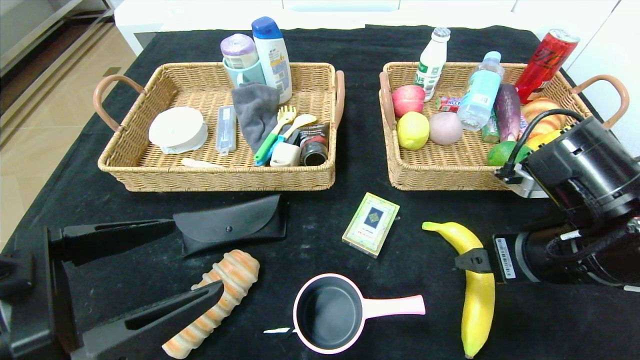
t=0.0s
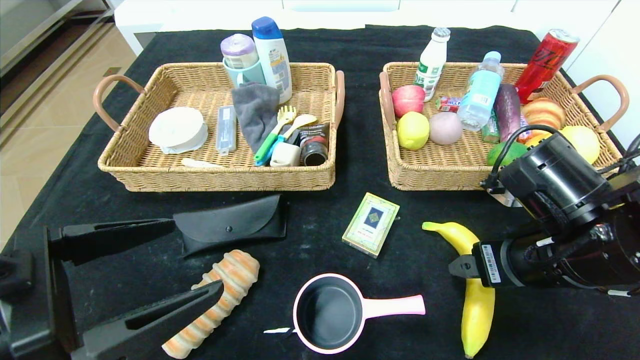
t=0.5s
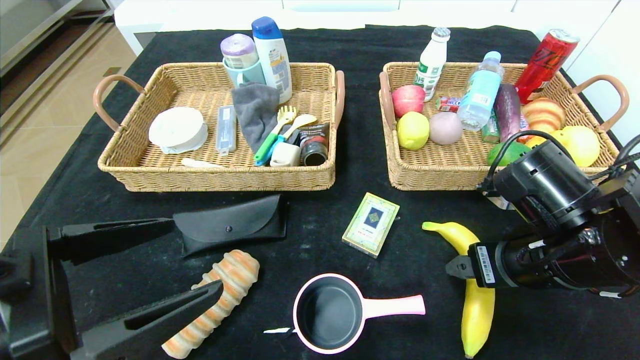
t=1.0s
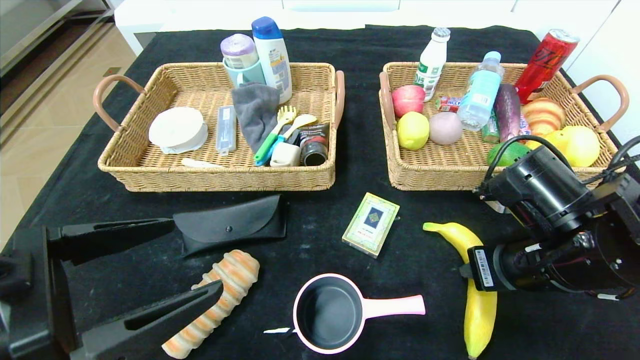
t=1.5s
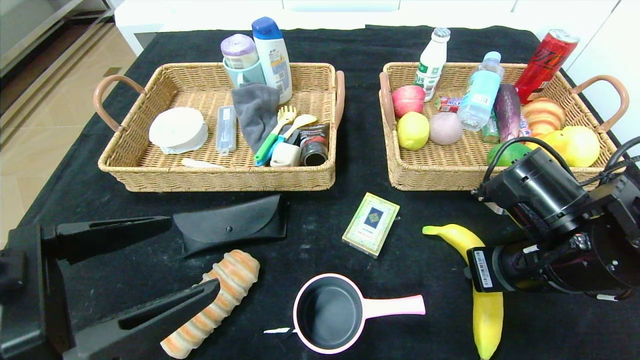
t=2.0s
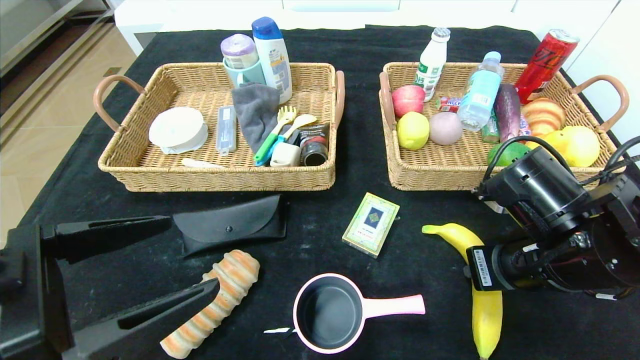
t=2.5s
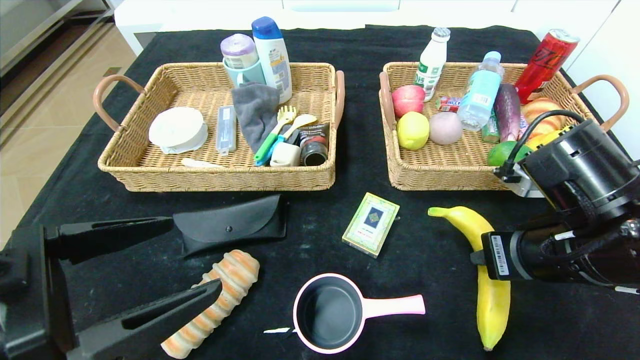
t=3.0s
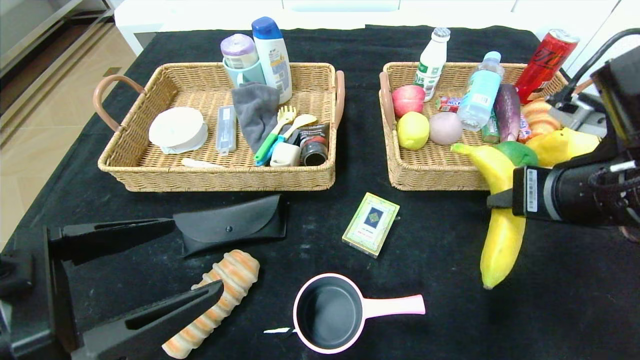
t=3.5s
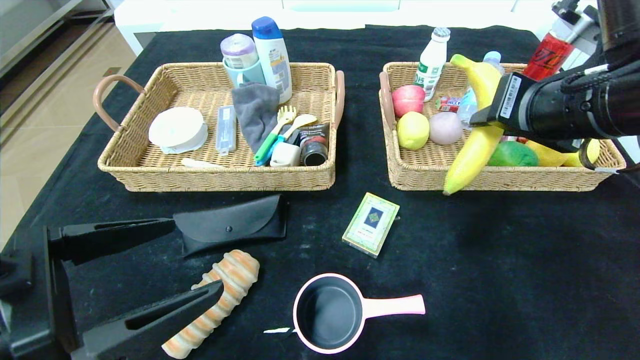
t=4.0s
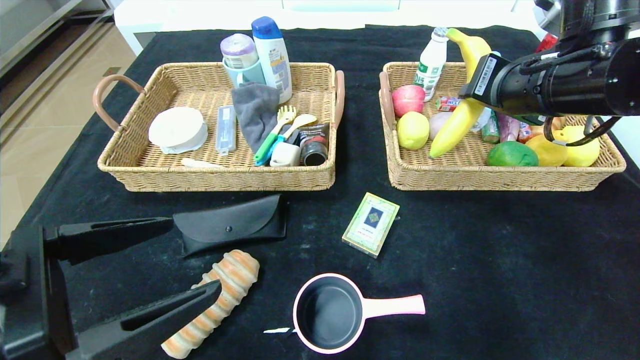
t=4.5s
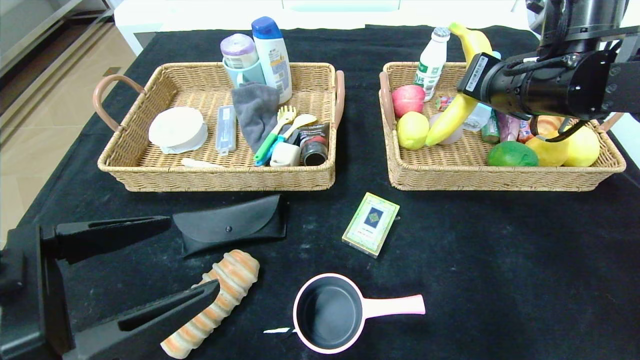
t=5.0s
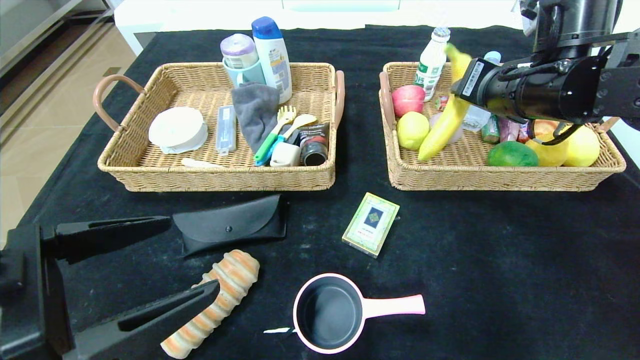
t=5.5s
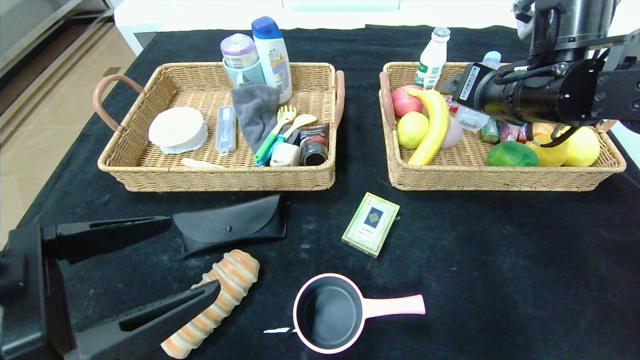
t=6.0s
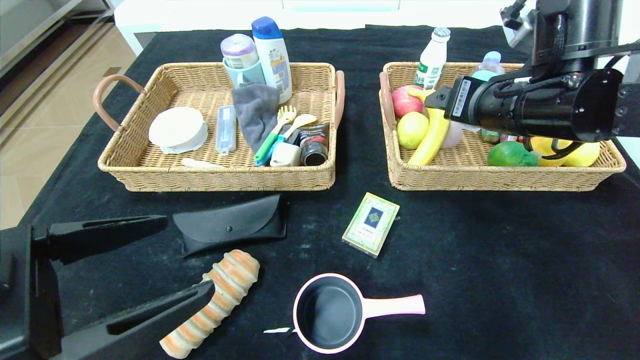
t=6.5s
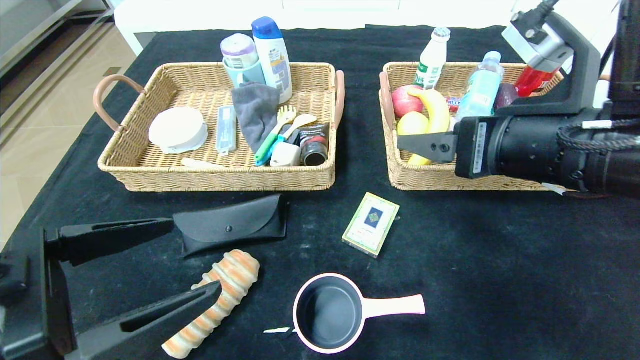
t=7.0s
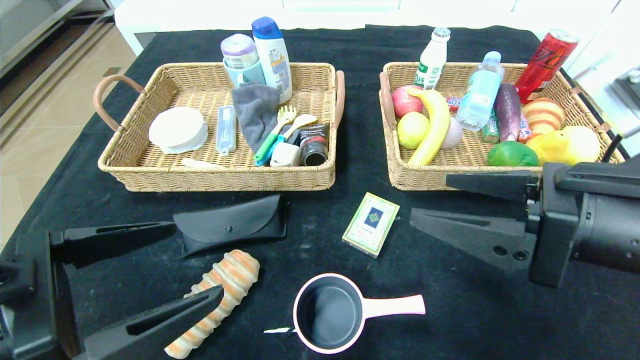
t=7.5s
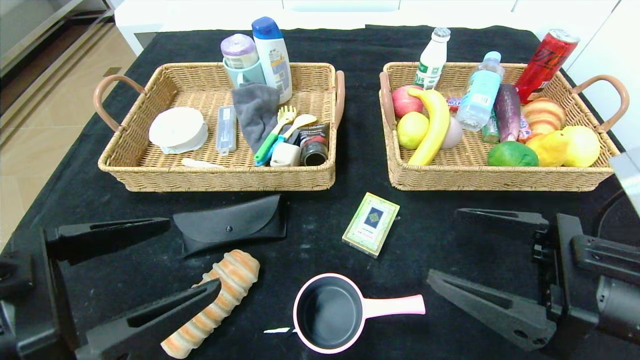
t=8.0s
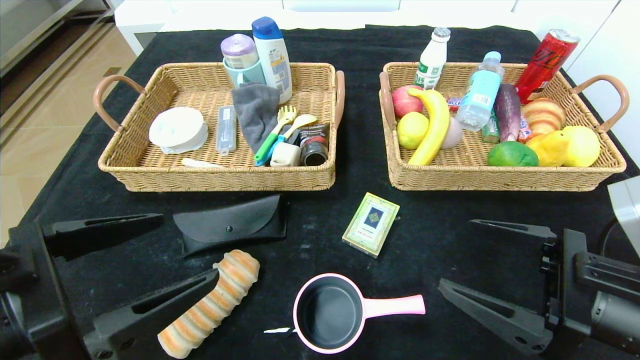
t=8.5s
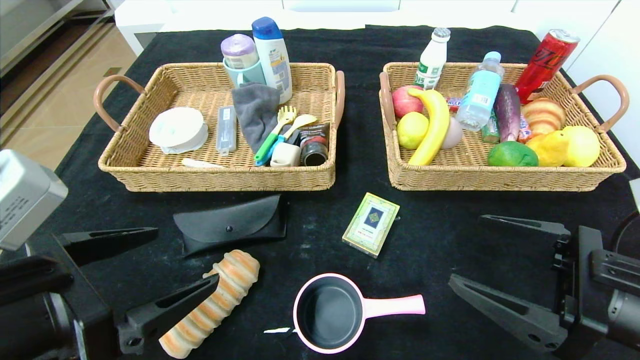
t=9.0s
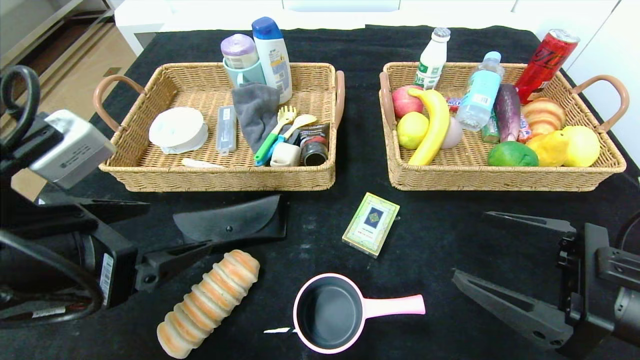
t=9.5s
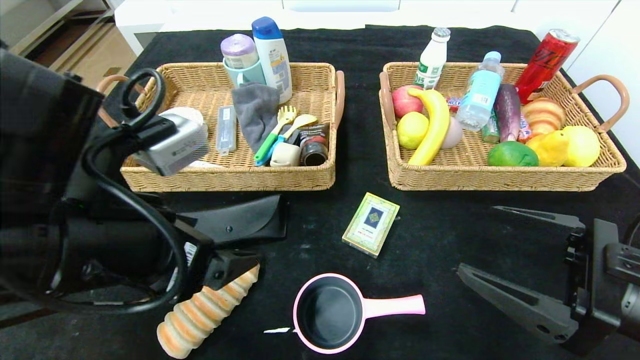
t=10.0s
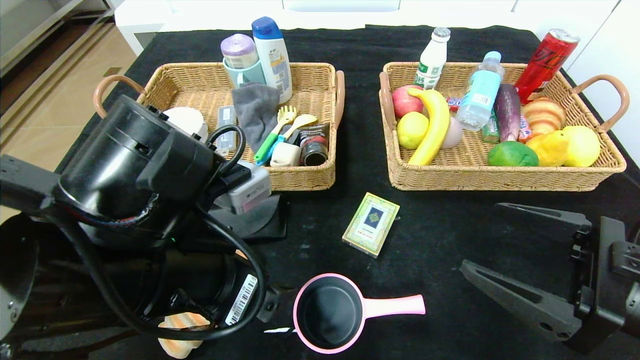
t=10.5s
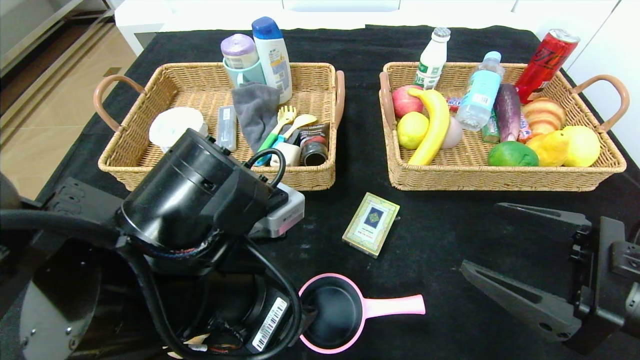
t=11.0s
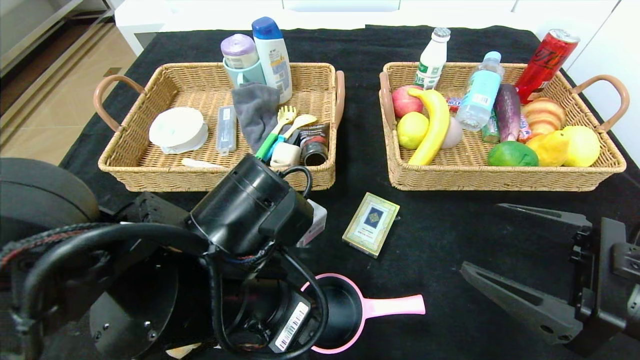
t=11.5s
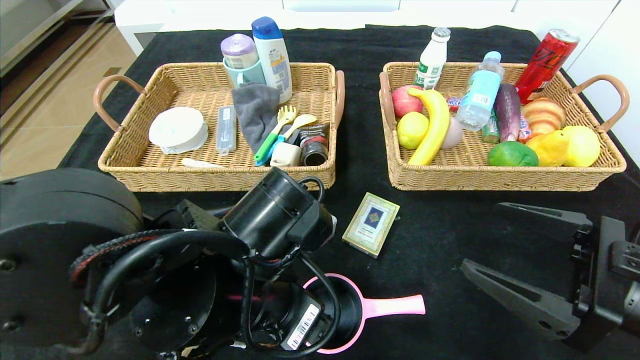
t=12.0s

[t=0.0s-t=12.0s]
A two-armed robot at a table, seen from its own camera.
Step, t=0.0s to t=7.5s: Pick up the banana and put it in the right basket.
t=0.0s to t=2.0s: The right gripper closes up.
t=2.0s to t=4.0s: The right gripper travels upward by about 15 cm.
t=4.0s to t=6.0s: The right gripper heads forward, covering approximately 5 cm, and opens up.
t=6.0s to t=8.0s: The right gripper travels backward and downward by some 20 cm.
t=8.0s to t=10.0s: The left gripper travels forward and to the right by approximately 10 cm.
t=10.0s to t=12.0s: The left gripper is displaced to the right and downward by about 10 cm.

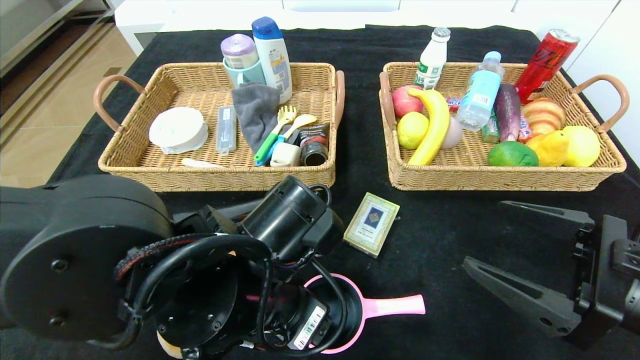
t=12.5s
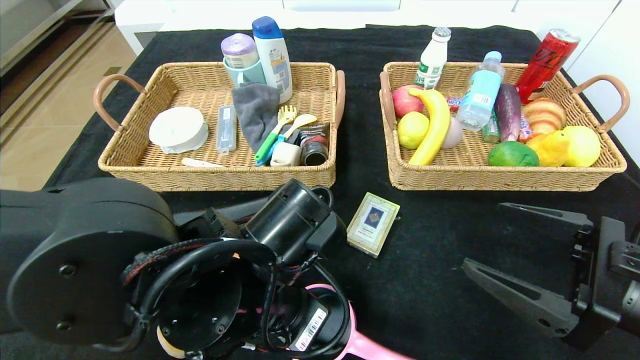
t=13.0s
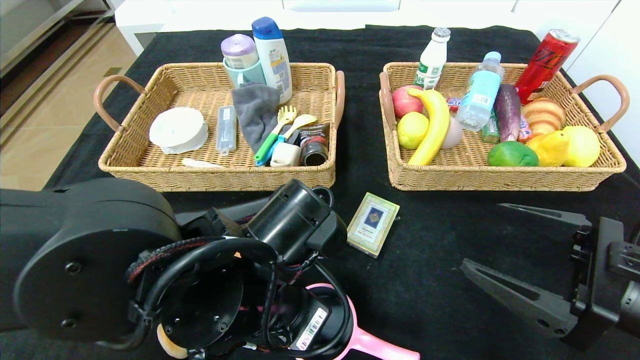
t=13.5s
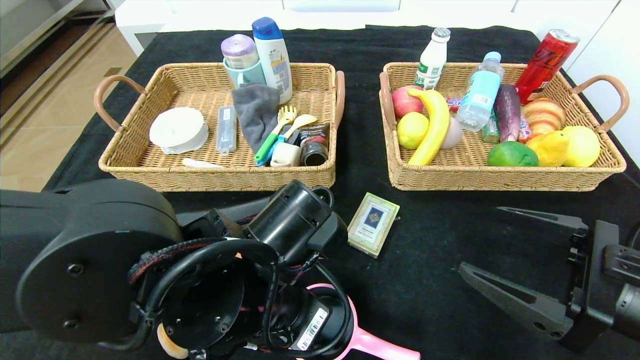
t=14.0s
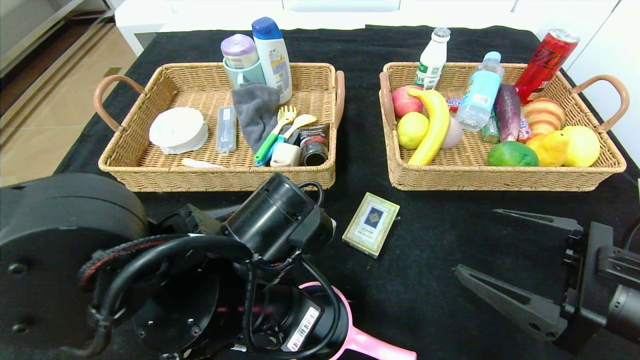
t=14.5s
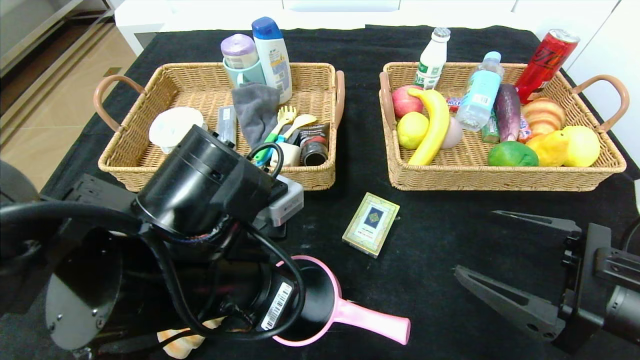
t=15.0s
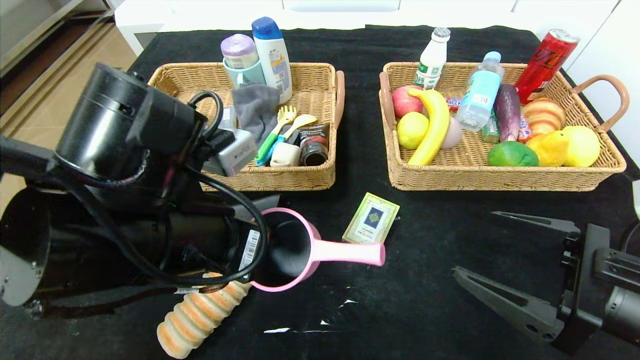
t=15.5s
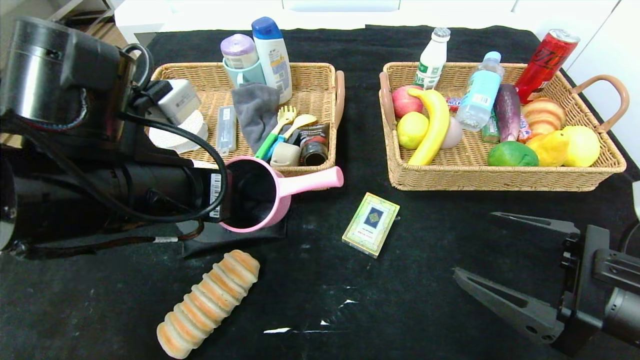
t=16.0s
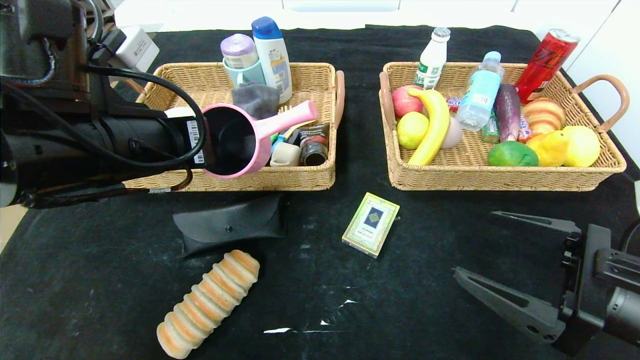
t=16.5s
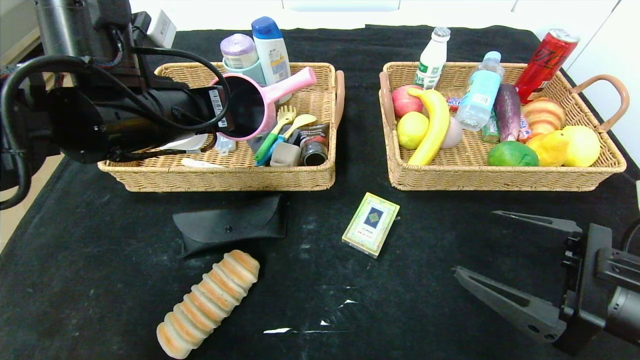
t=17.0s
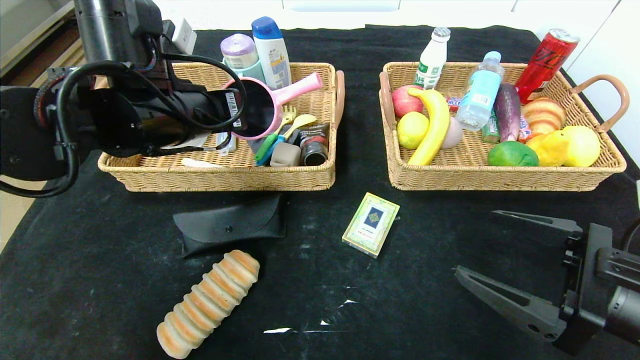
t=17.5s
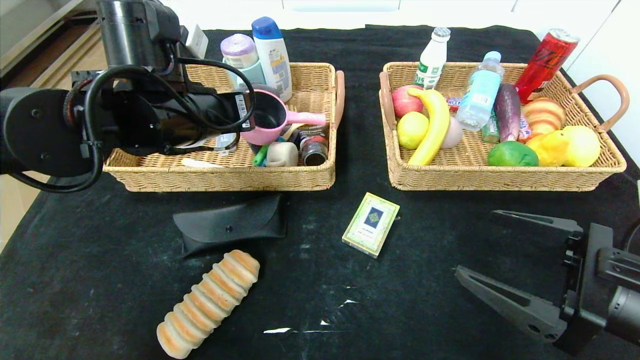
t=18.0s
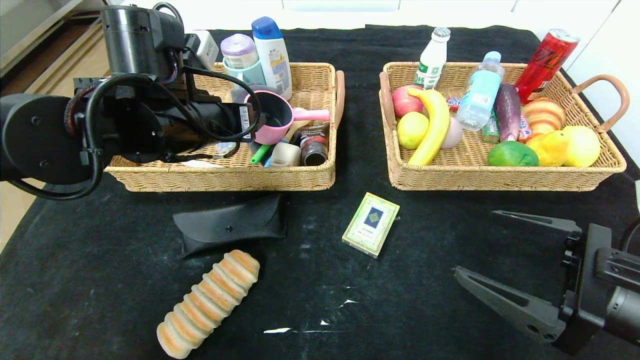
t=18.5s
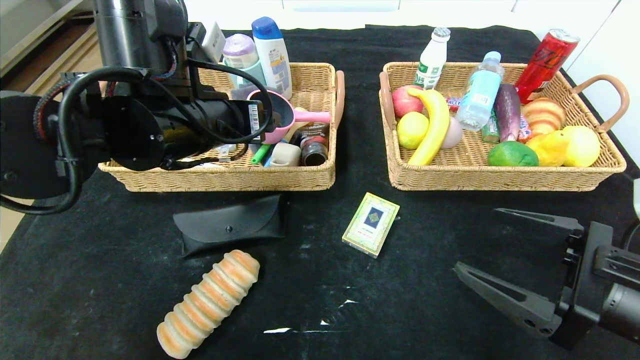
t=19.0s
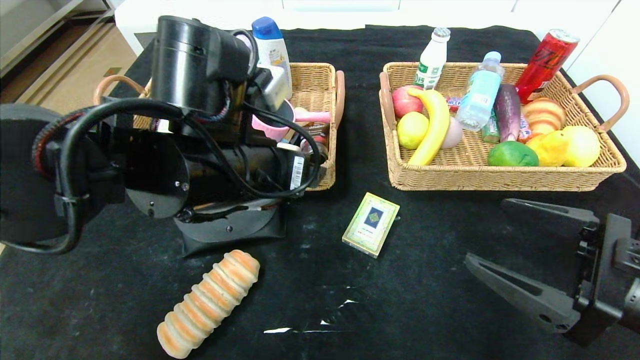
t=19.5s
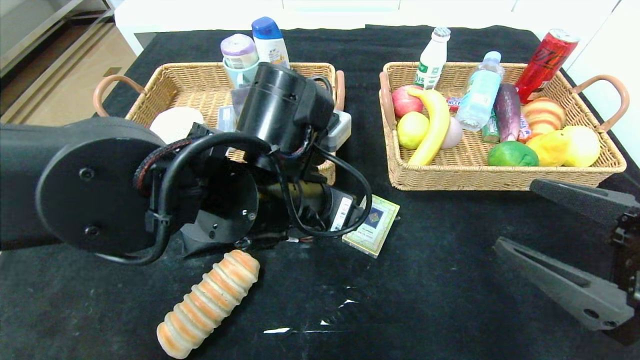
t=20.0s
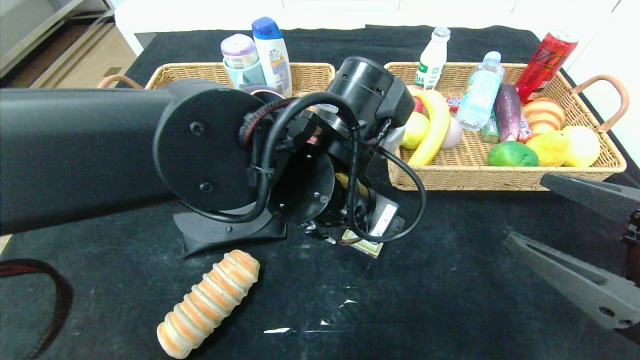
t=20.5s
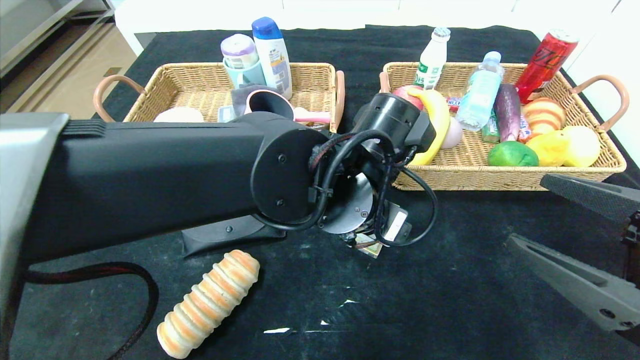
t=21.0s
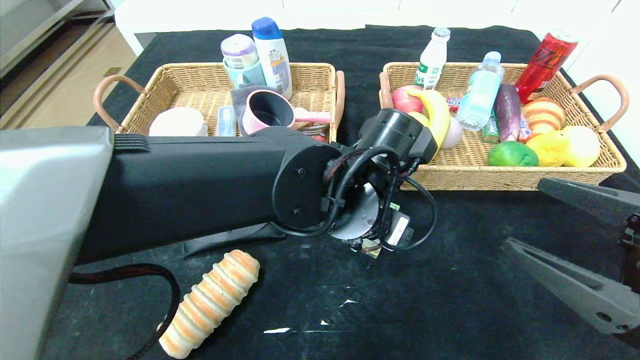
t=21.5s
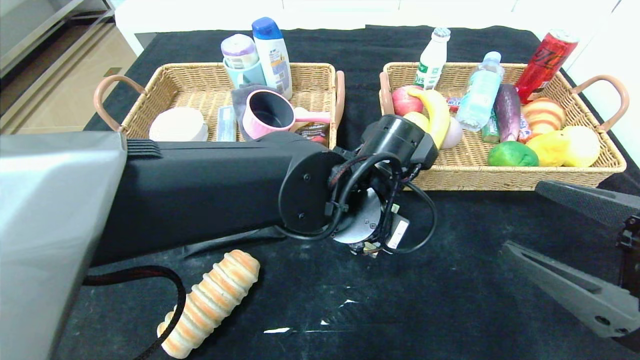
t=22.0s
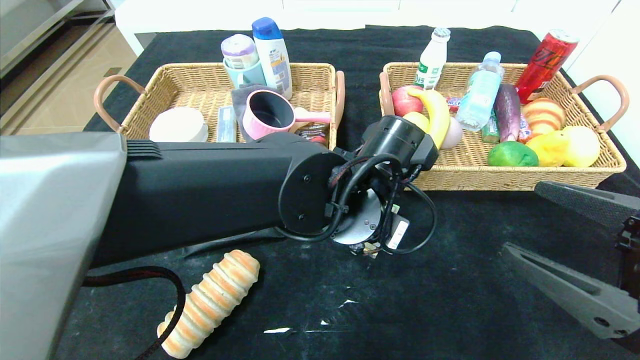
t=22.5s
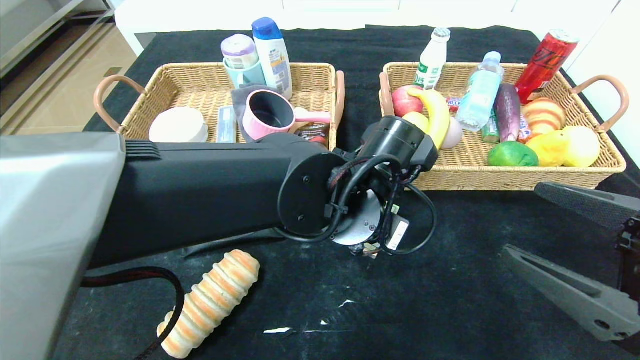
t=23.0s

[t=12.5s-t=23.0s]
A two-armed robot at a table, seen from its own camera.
Step, t=12.5s to t=20.0s: Pick up the pink pot and put it in the left basket.
t=12.5s to t=14.5s: The left gripper closes up.
t=14.5s to t=16.5s: The left gripper goes about 15 cm to the left, upward and forward.
t=16.5s to t=19.0s: The left gripper is displaced forward by approximately 5 cm, and opens.
t=19.0s to t=21.0s: The left gripper shifts about 20 cm to the right and downward.
t=21.0s to t=23.0s: The left gripper closes.
